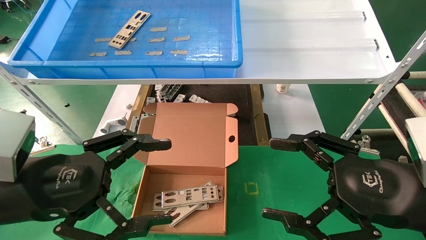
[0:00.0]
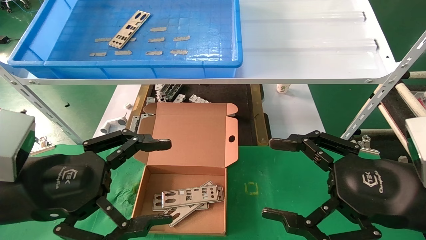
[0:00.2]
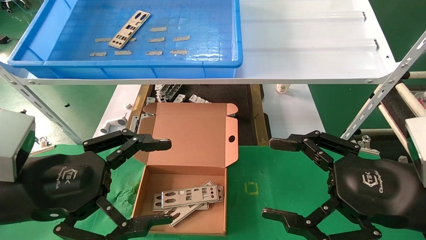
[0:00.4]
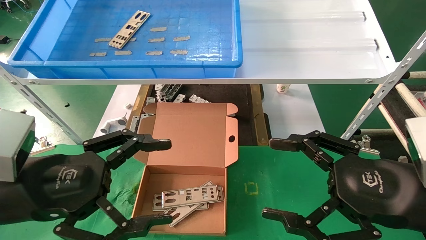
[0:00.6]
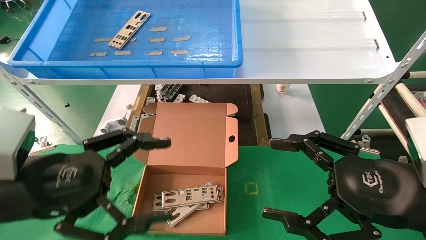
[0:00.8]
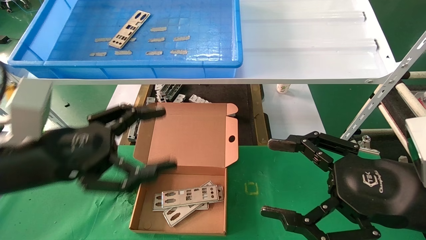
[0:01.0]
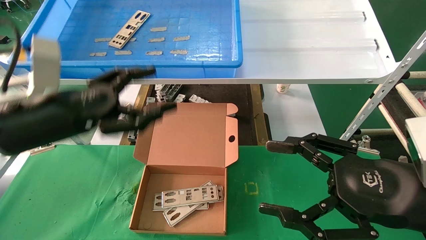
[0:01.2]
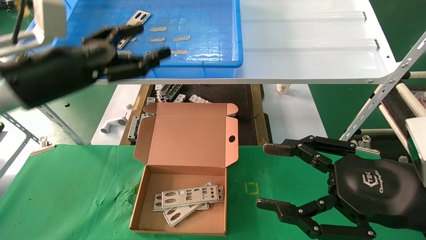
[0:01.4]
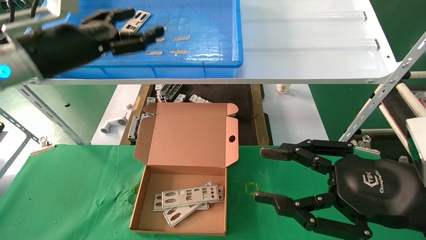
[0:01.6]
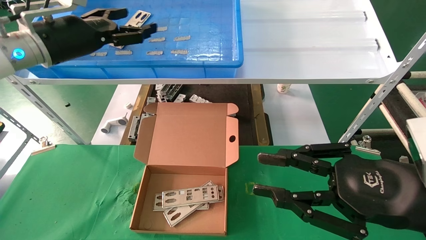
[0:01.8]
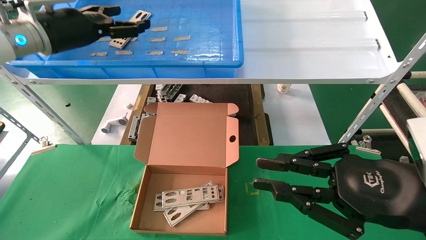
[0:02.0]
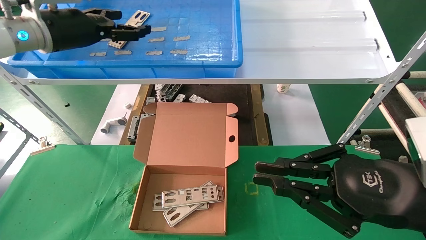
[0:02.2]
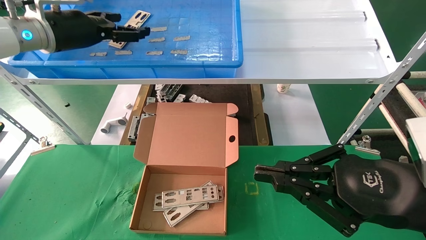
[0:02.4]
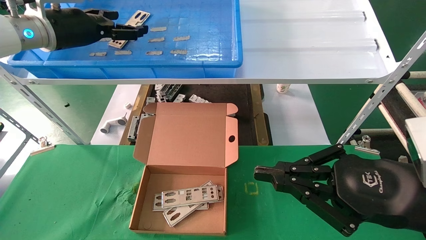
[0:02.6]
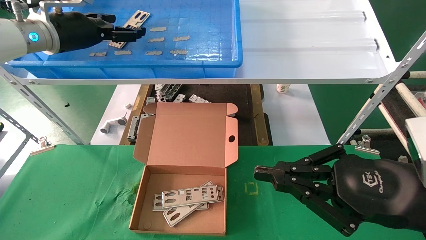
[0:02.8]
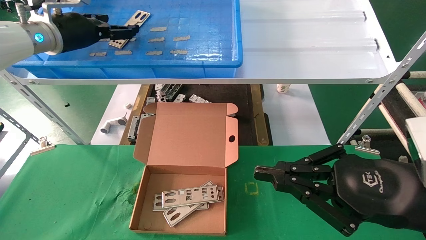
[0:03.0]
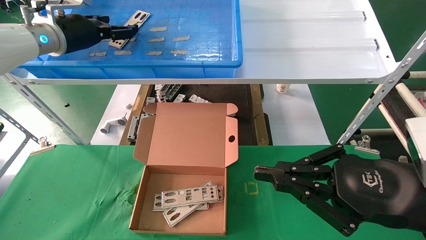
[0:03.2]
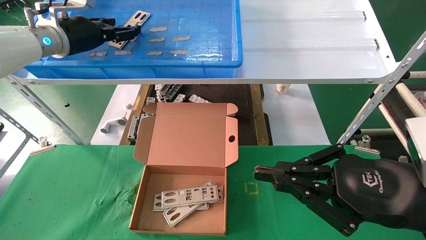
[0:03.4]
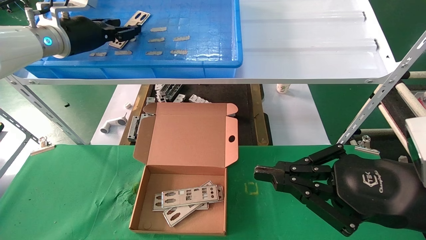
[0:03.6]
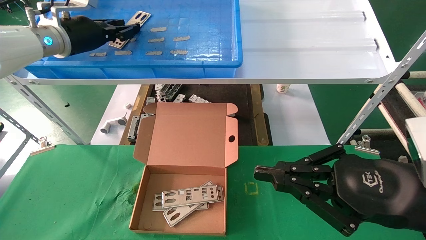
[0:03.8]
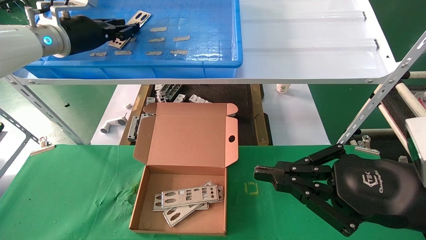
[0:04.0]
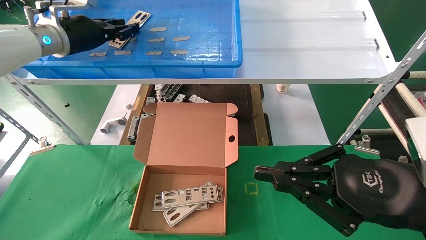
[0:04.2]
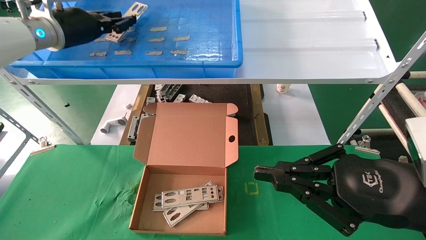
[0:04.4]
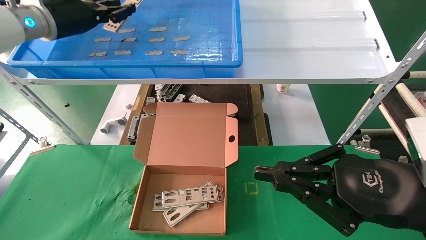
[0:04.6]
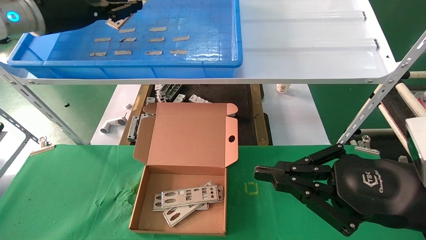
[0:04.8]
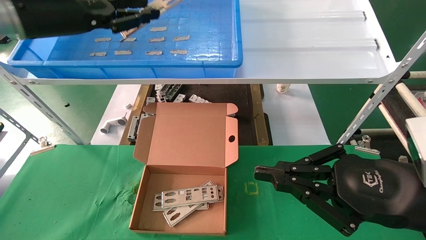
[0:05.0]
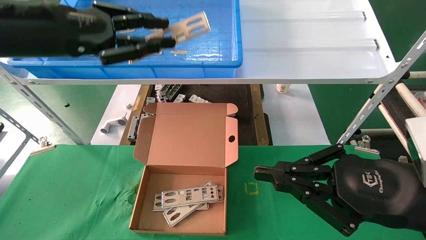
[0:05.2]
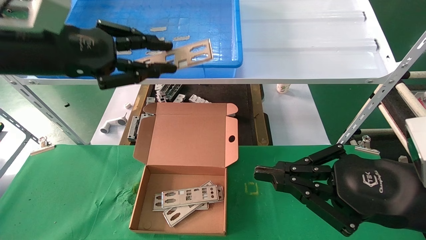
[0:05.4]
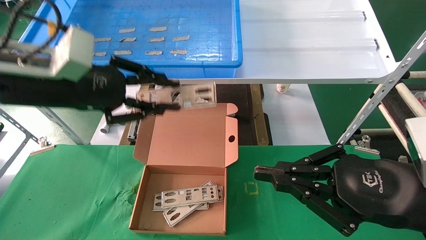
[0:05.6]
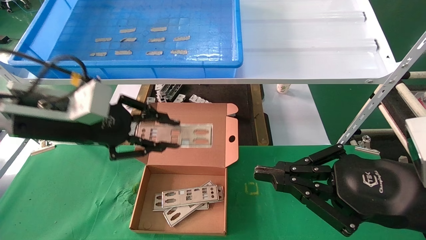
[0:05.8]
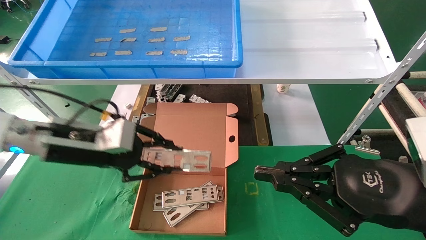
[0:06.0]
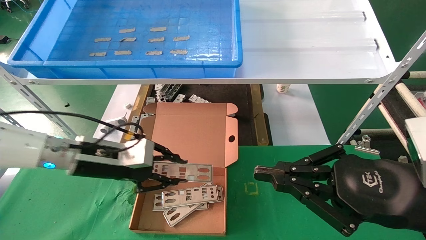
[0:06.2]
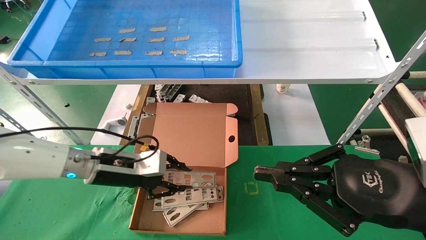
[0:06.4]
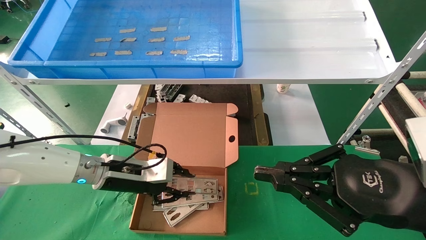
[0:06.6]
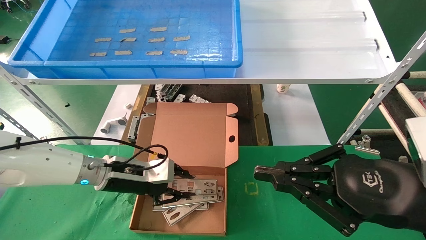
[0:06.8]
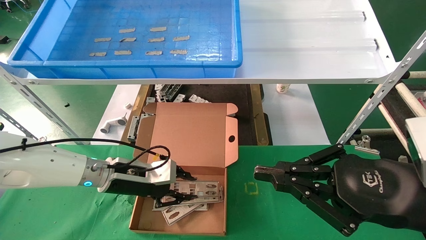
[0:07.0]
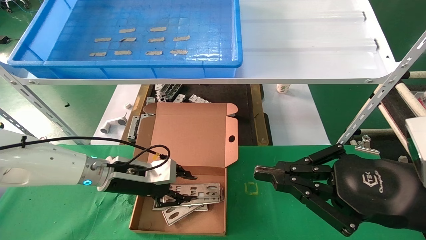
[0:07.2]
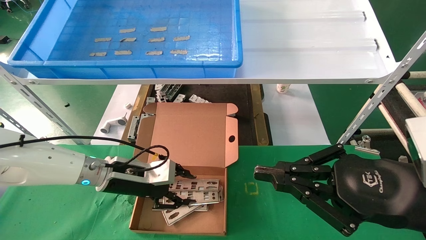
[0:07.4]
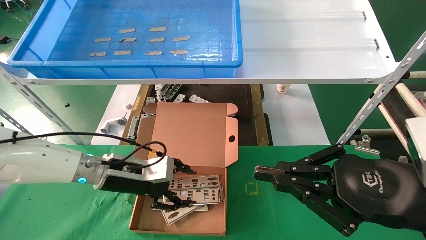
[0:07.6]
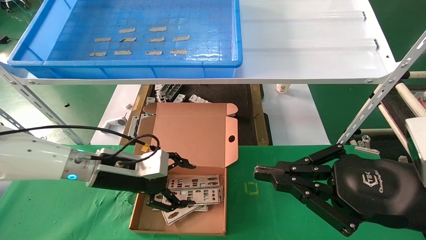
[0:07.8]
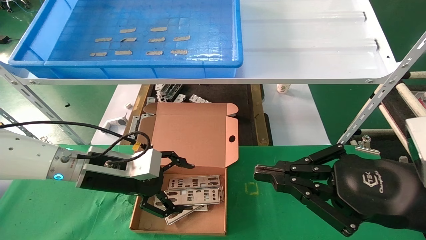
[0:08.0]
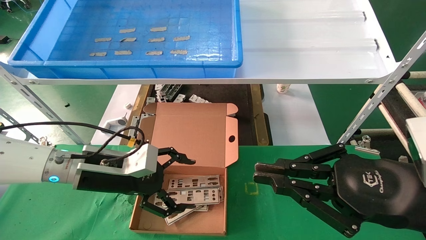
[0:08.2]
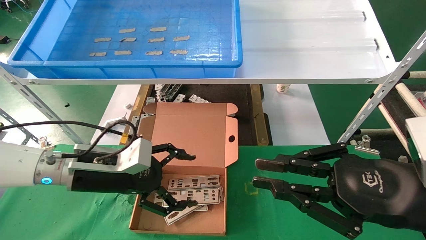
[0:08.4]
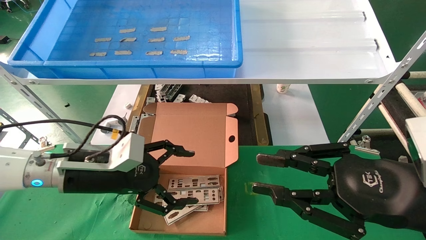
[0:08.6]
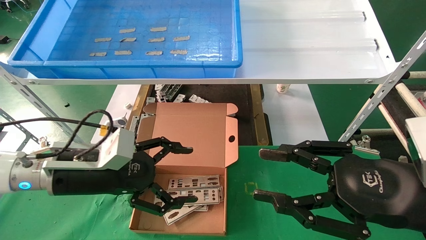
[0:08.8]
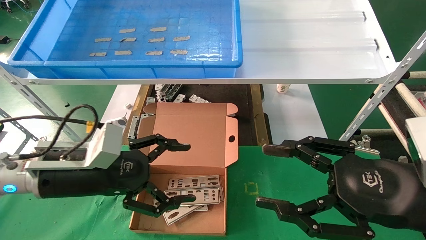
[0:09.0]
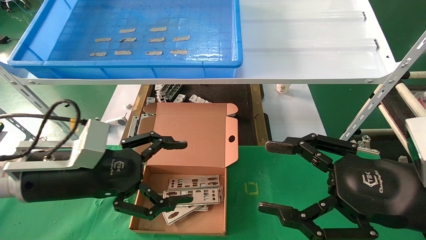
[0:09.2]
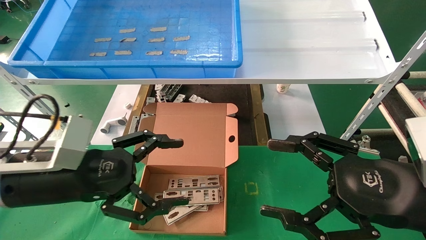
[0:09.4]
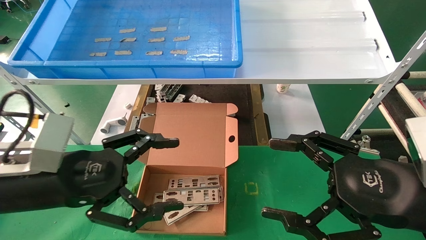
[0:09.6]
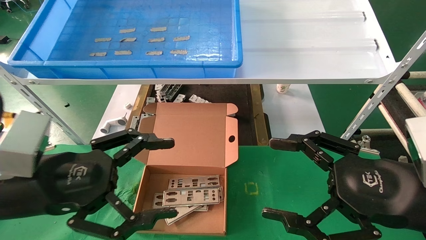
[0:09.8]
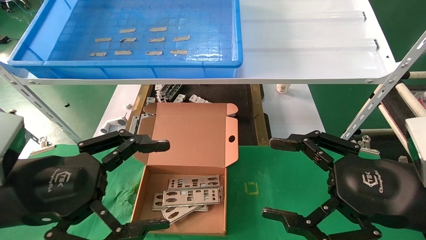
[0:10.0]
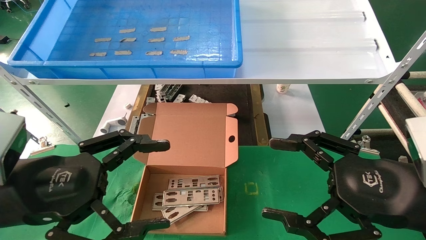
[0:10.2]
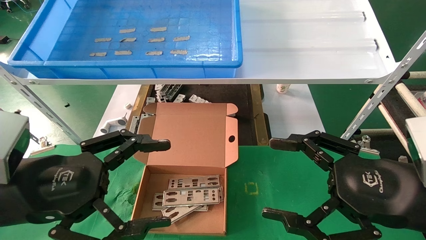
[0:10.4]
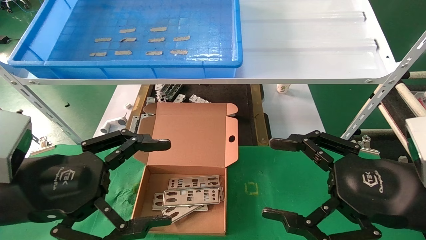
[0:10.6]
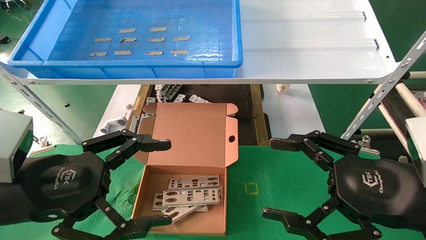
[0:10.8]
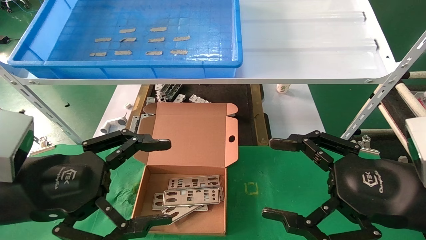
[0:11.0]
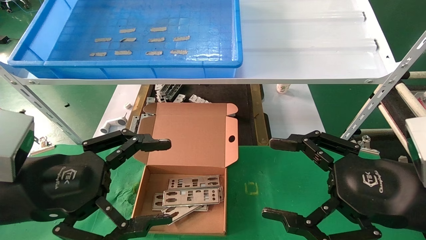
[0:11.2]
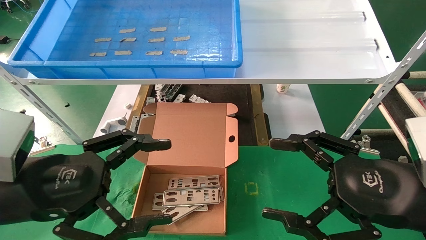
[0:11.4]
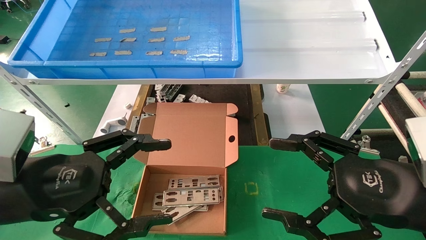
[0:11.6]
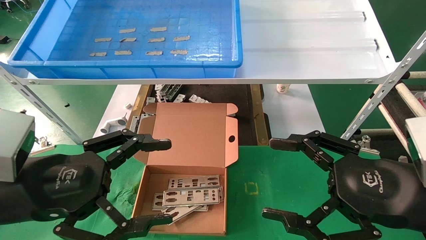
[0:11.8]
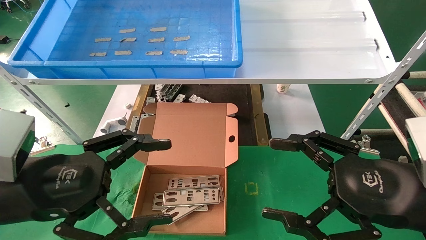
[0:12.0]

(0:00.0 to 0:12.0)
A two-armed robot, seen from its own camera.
Task of the whole recording: pick up the parts on the tray and put them in the cardboard box.
Step, 0:01.2 - 0:04.4: Pick up the IO bracket from the container box.
Step, 0:04.6 - 0:07.2: Place the IO bracket into the ingredient slot.
0:00.0 - 0:01.6: The left gripper shifts approximately 20 cm forward and upward.
0:01.6 - 0:03.0: The right gripper closes. Meanwhile the left gripper travels forward by about 10 cm.
0:03.0 - 0:04.4: The left gripper closes its fingers.
0:04.4 - 0:06.0: The left gripper is displaced downward and backward by approximately 20 cm.
0:06.0 - 0:07.6: The left gripper goes some 10 cm downward, and opens up.
0:07.6 - 0:09.0: The left gripper shifts approximately 10 cm backward and upward, and opens up. The right gripper opens.
0:09.0 - 0:10.4: The left gripper goes roughly 10 cm backward; the right gripper opens.
0:10.4 - 0:12.0: Both grippers stay put.

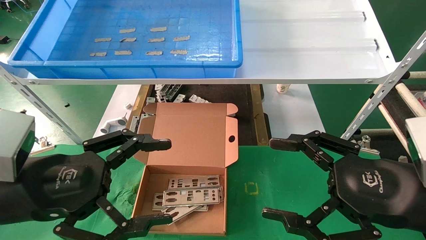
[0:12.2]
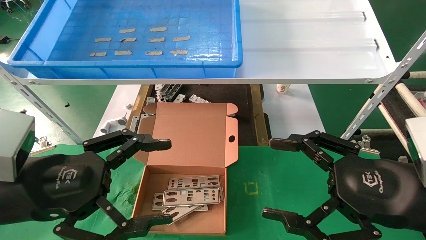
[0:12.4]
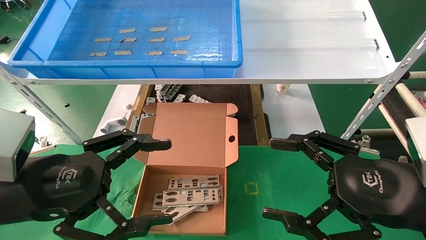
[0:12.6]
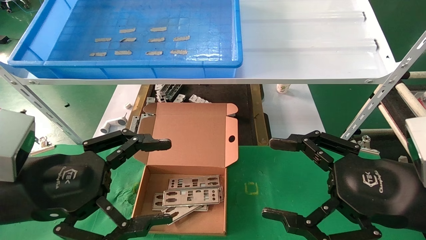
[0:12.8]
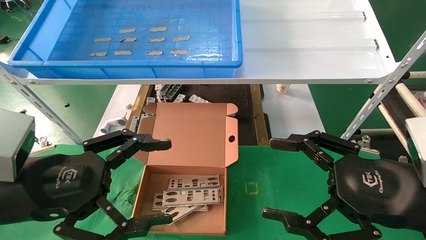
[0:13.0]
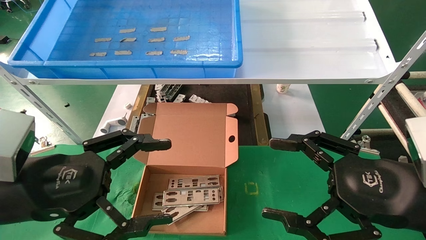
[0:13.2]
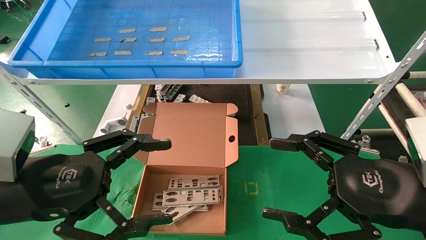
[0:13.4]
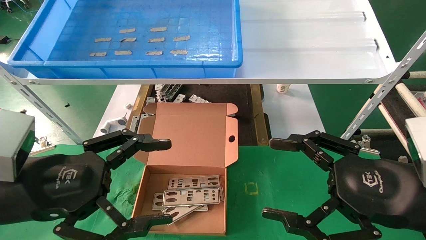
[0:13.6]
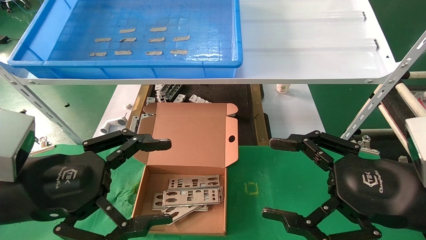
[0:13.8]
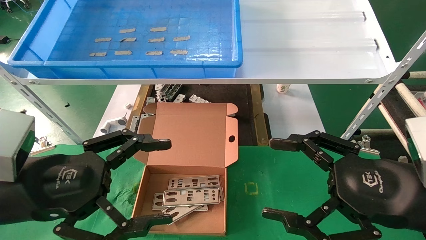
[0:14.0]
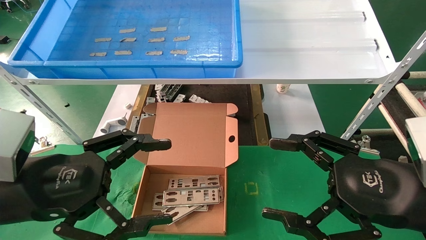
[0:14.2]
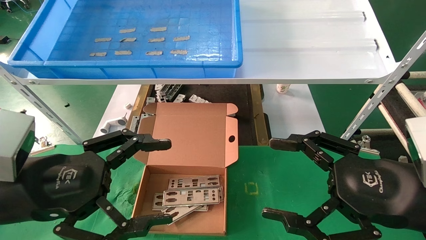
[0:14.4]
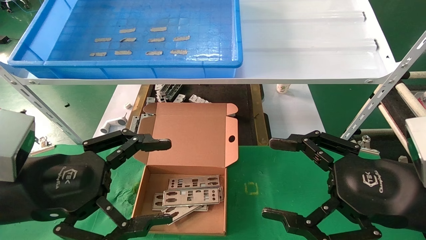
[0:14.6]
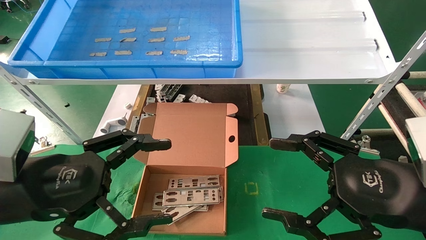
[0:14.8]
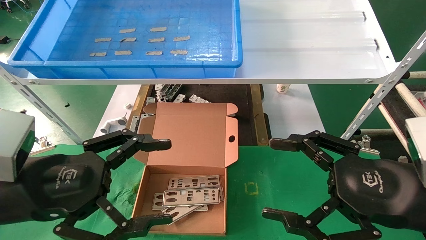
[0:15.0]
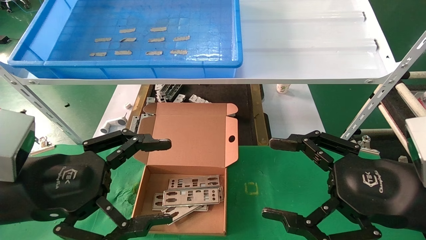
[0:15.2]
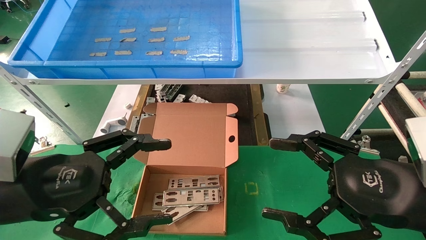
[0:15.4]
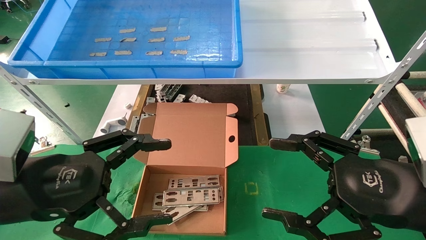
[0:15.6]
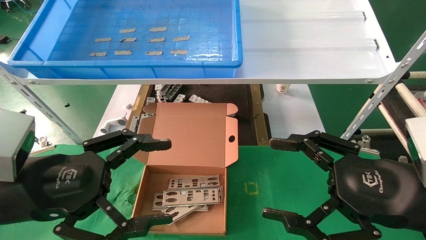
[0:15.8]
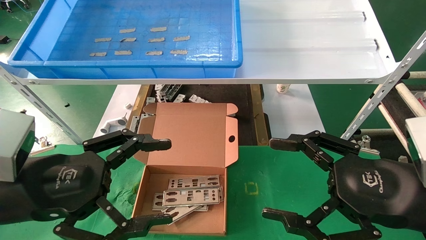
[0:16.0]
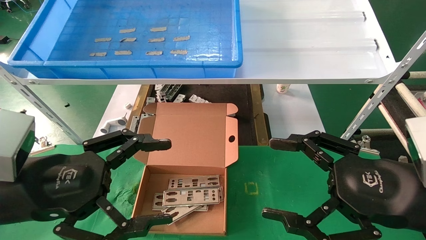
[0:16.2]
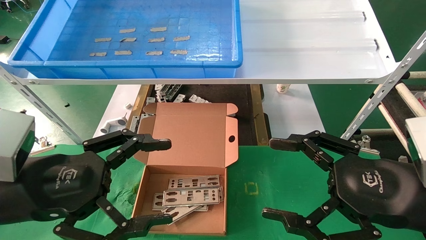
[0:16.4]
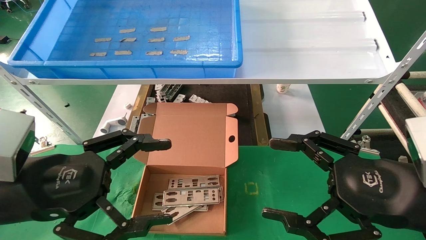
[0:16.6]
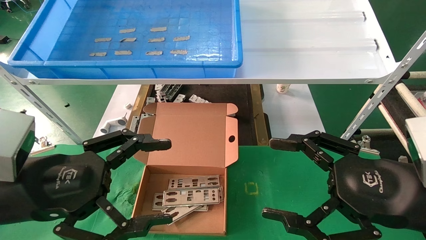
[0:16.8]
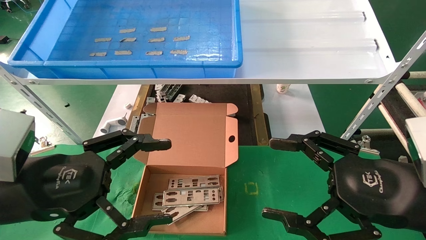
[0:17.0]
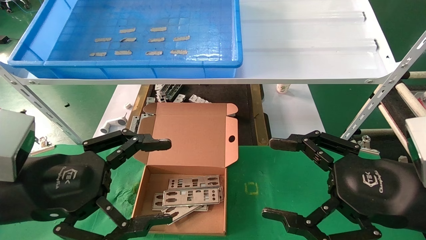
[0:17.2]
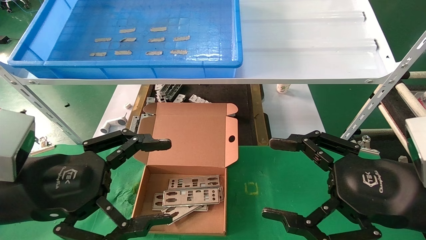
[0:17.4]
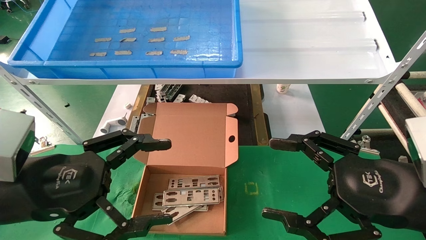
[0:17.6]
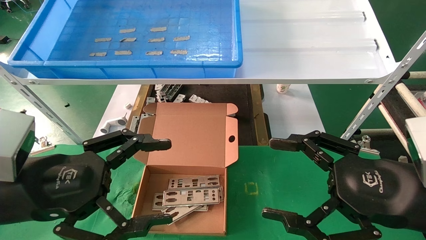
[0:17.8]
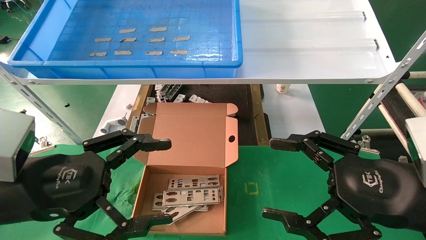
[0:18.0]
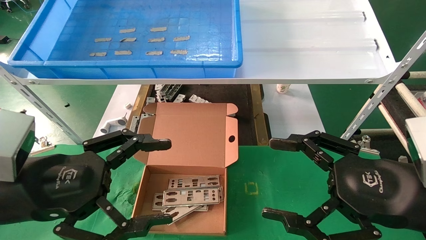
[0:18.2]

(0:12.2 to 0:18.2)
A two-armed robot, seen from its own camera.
Task of the whole recording: pick up the parts on the tray and put them in the cardboard box.
0:12.2 - 0:18.2: Both grippers stay put.
